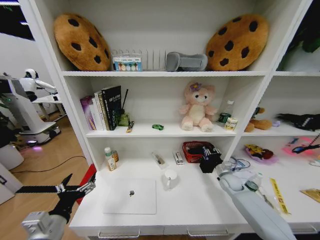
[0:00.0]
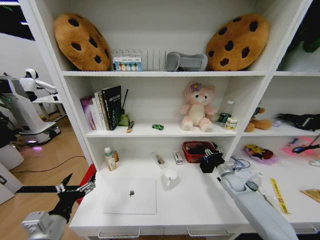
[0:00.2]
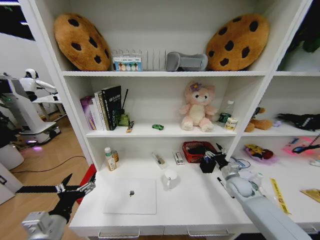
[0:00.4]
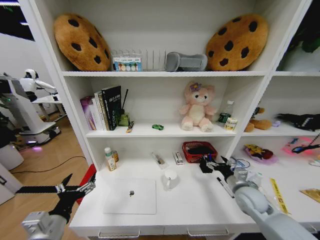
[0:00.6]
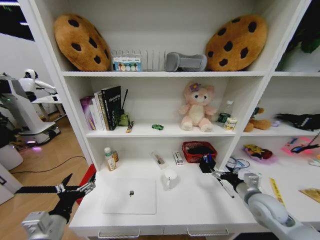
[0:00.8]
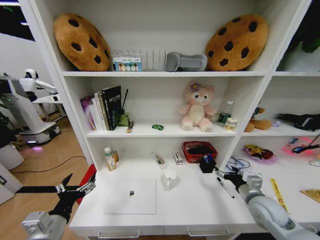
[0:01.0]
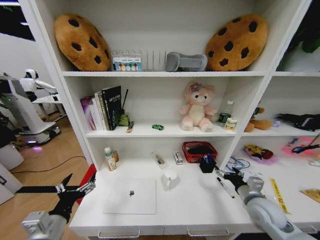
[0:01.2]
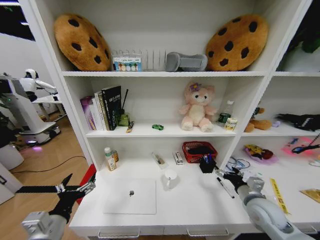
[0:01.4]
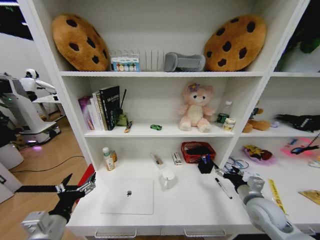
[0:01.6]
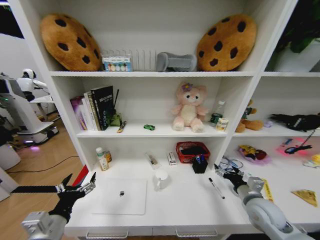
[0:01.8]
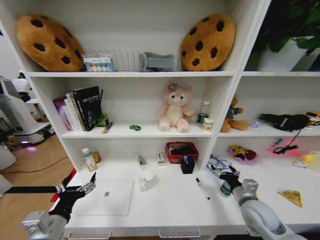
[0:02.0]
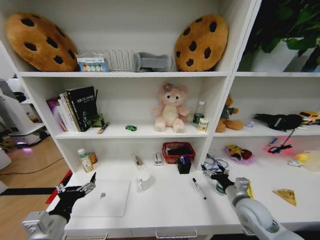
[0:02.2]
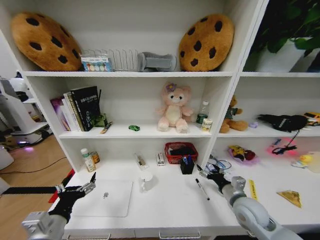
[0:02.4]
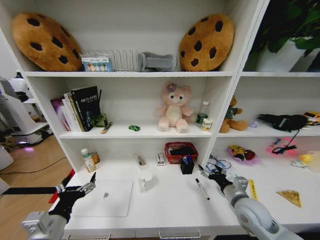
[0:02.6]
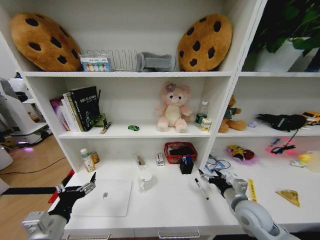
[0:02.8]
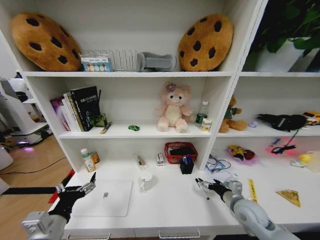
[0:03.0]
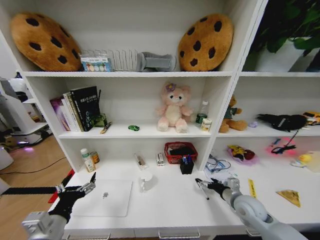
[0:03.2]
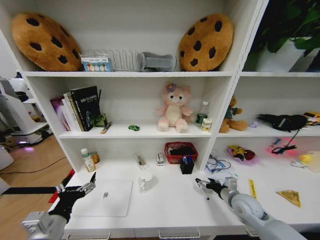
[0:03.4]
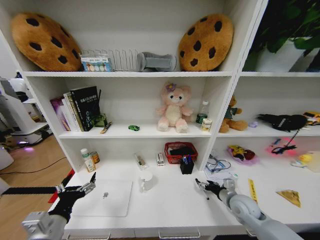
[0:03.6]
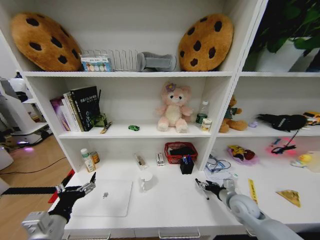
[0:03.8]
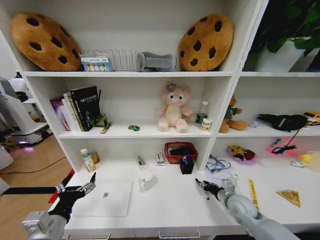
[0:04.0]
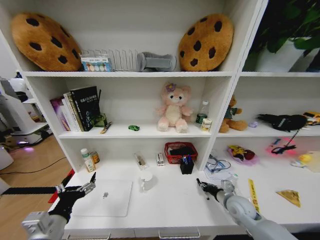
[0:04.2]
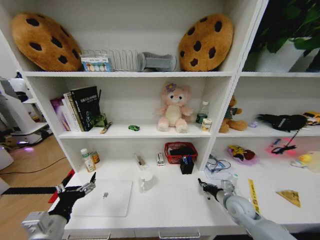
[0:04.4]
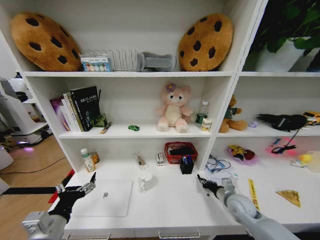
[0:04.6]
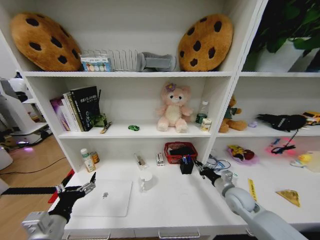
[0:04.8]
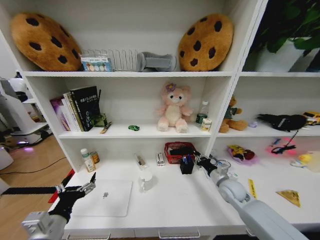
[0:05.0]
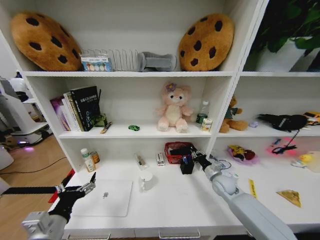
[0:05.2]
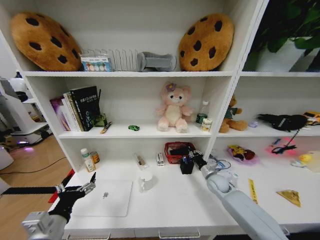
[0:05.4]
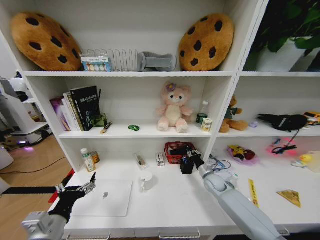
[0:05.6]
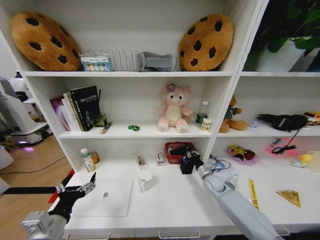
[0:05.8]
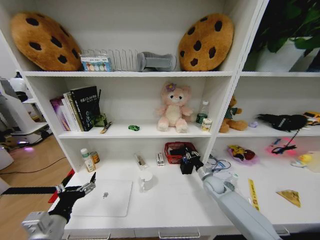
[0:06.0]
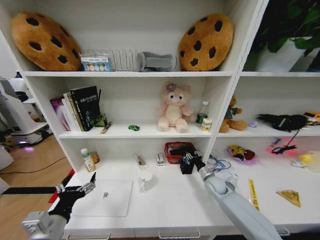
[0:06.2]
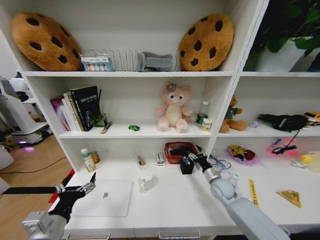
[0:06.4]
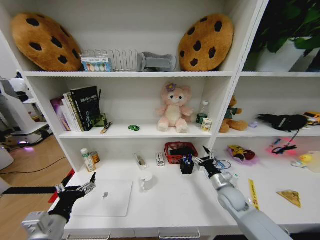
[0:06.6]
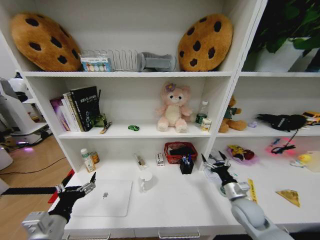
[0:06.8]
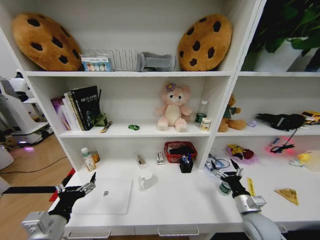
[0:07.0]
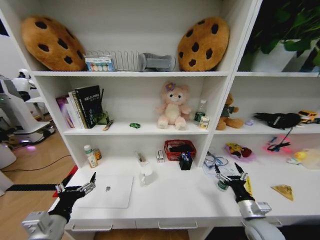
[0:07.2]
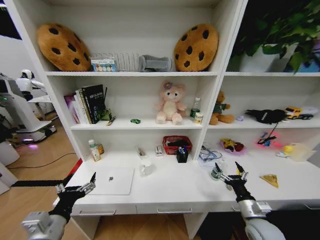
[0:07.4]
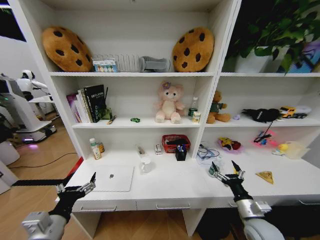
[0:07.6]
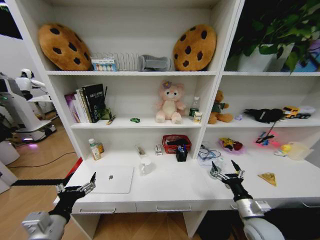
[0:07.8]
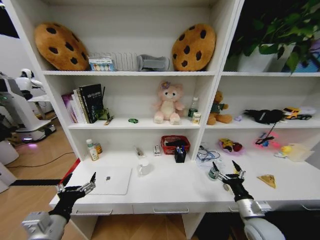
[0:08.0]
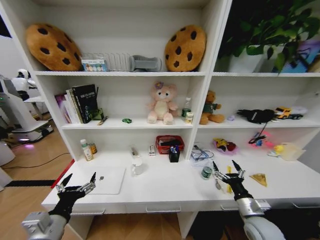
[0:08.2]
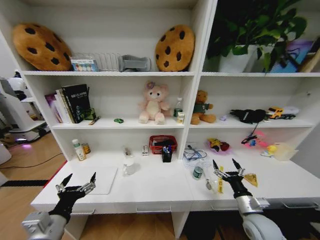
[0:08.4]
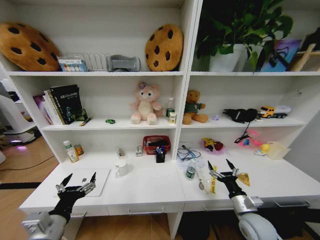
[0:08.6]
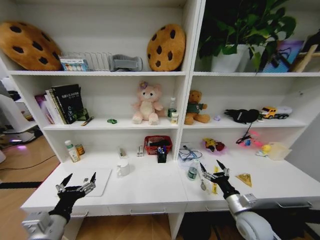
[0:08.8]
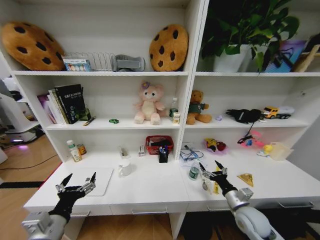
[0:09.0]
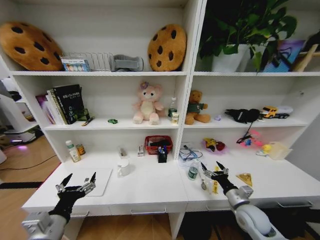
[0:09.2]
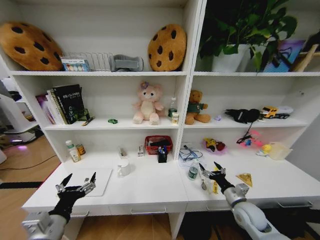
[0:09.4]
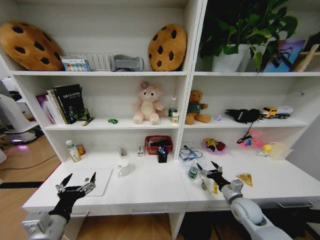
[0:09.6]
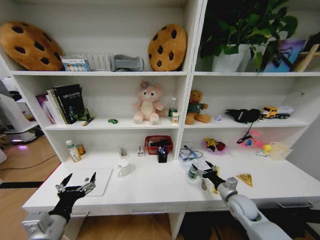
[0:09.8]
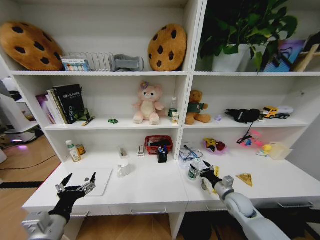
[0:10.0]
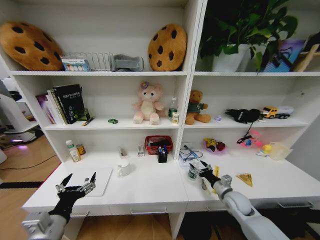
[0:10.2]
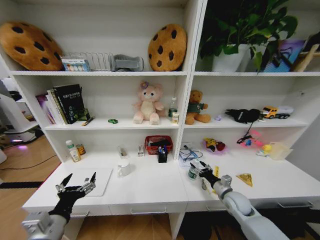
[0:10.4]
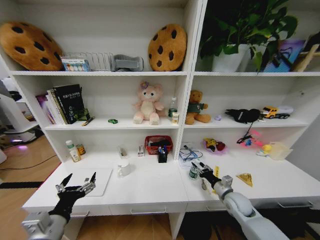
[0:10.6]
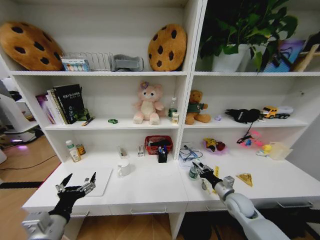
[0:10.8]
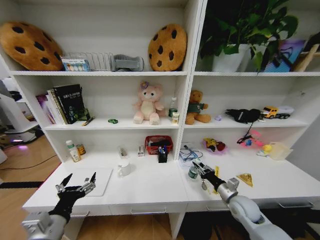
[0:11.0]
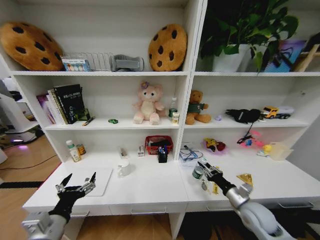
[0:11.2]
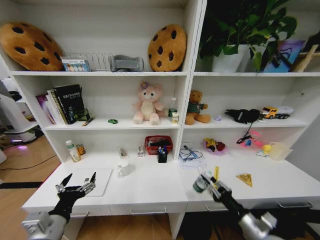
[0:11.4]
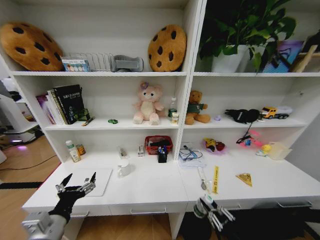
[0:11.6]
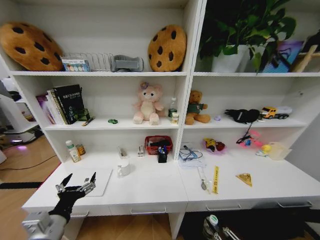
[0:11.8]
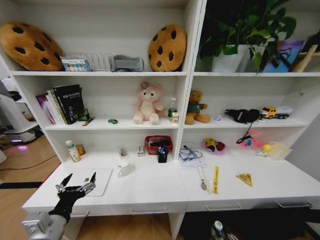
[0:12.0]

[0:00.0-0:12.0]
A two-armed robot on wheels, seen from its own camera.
Task of the whole recording: Organize the objects on the table.
0:00.0 to 0:01.6: The right gripper heads backward and upward, covering approximately 20 cm, and opens its fingers.
0:03.0 to 0:04.4: The right gripper ends up roughly 5 cm from where it was, and closes up.
0:04.4 to 0:06.0: The right gripper travels forward by roughly 10 cm.
0:06.0 to 0:07.6: The right gripper shifts some 20 cm backward, and opens its fingers.
0:09.0 to 0:10.4: The right gripper heads forward, covering approximately 10 cm.
0:10.4 to 0:12.0: The right gripper moves backward, approximately 30 cm, and closes its fingers.

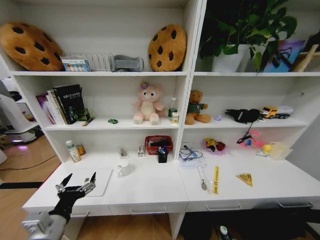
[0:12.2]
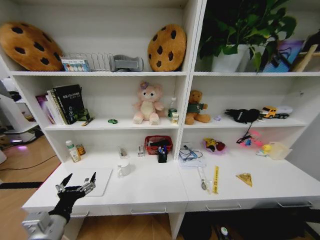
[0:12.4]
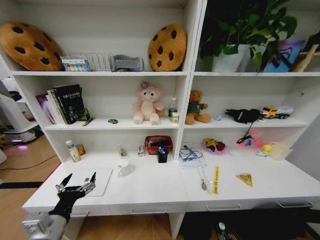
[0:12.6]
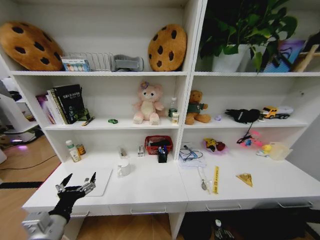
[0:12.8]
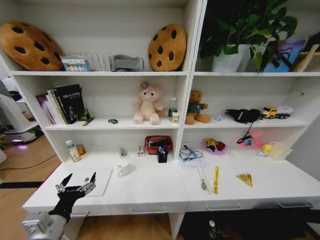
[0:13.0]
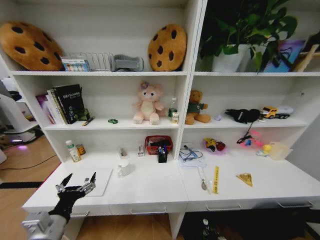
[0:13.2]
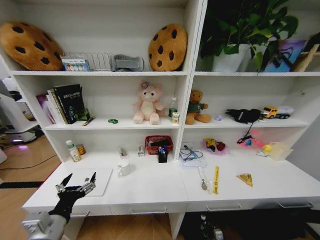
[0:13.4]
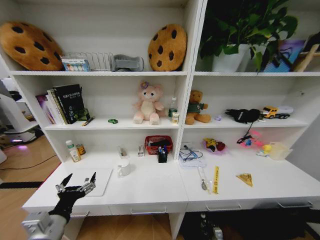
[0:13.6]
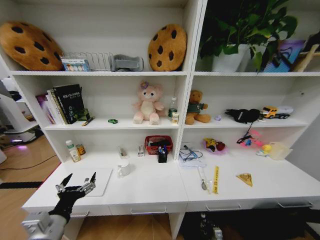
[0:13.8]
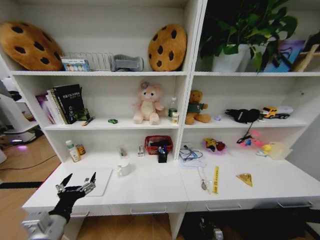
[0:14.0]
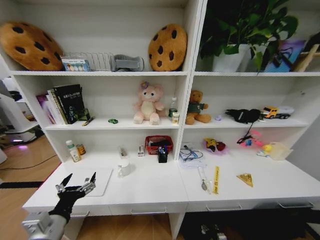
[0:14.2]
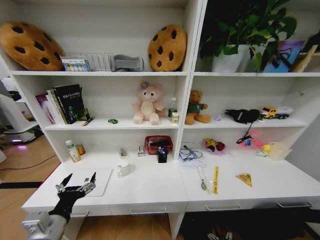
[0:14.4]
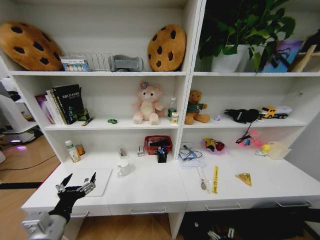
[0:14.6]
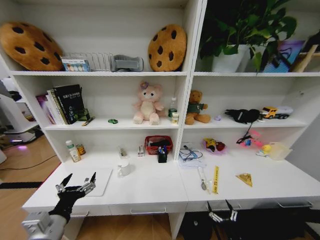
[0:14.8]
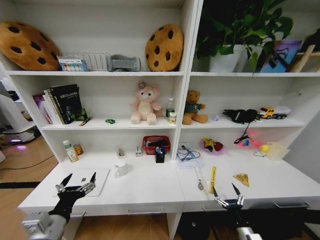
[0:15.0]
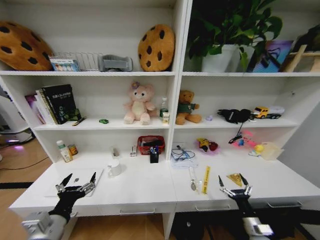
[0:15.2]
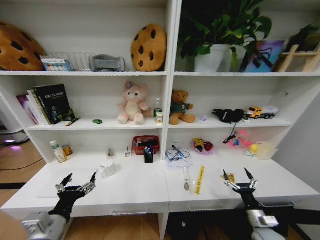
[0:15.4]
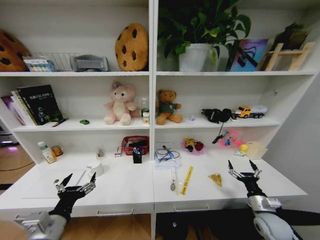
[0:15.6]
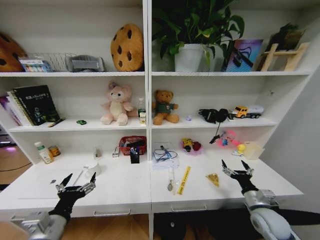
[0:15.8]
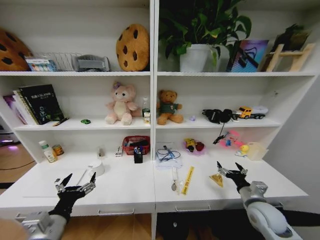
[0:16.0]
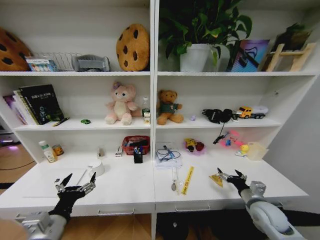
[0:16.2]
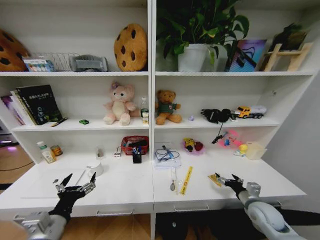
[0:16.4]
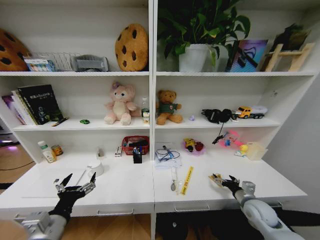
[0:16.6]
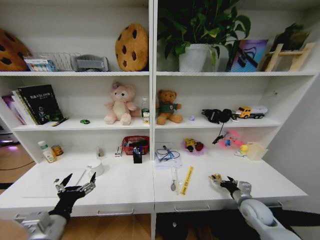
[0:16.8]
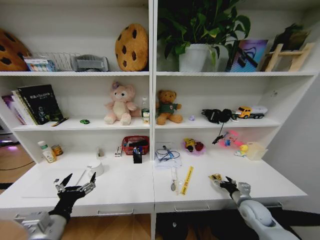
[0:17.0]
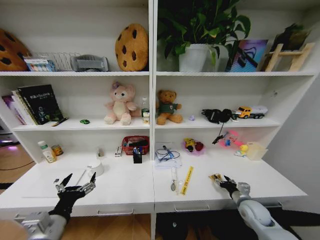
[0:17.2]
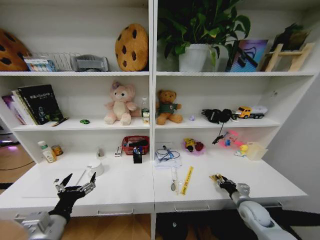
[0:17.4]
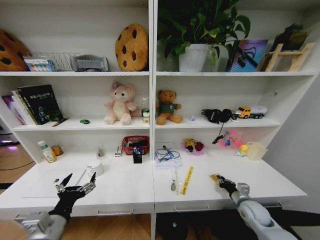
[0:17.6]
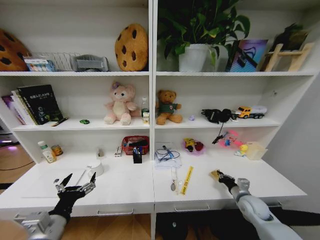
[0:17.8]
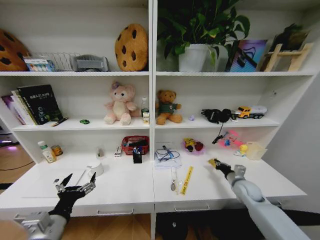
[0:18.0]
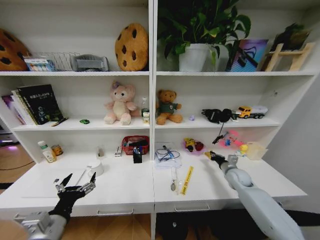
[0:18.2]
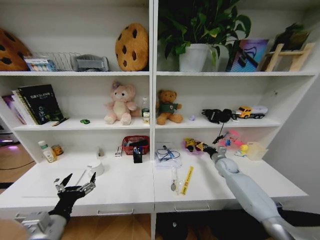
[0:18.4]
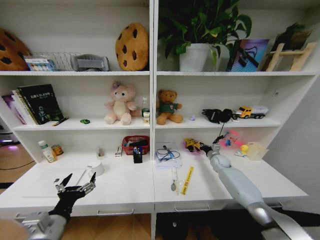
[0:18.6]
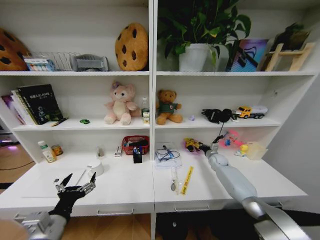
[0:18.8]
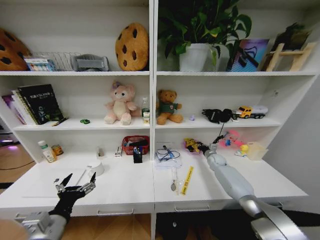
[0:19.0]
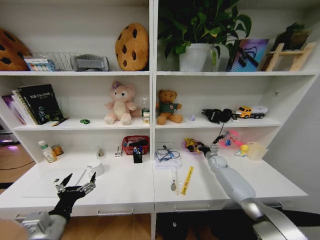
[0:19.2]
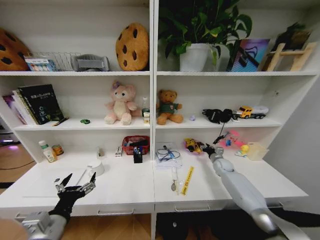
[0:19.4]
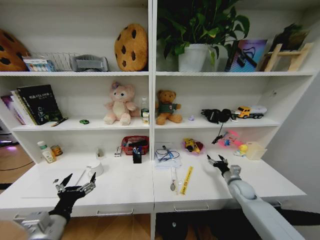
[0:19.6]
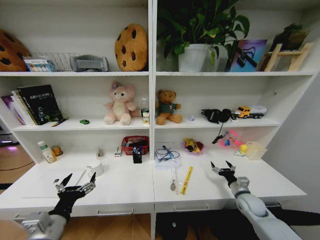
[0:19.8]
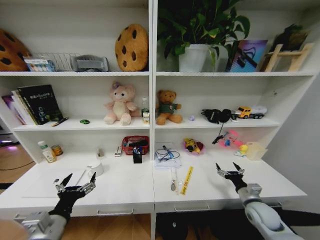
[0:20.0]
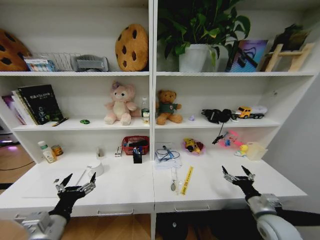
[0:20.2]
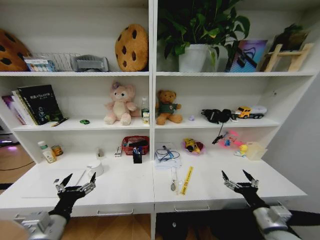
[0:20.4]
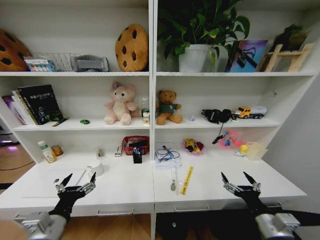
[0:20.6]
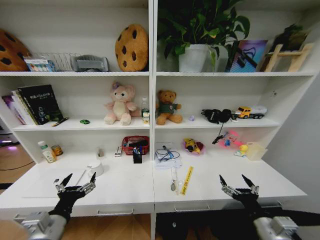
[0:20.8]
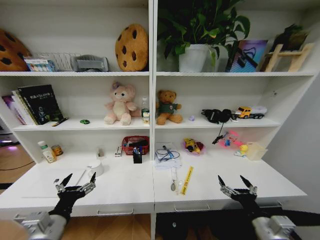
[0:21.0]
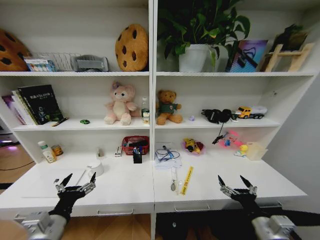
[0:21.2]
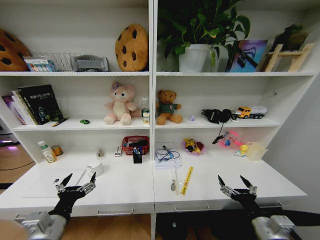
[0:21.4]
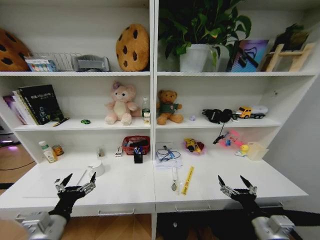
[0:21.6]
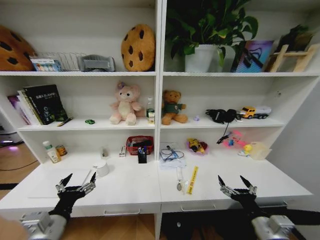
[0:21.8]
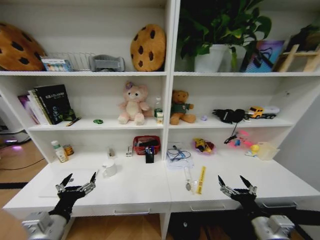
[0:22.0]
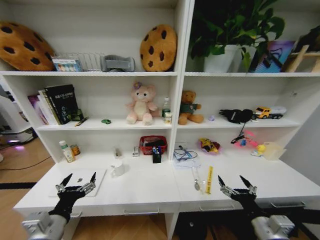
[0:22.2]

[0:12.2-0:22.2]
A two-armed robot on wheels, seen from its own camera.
Task of the whole recording: Organize the objects on the table.
0:13.6 to 0:15.0: The right gripper heads upward, covering approximately 20 cm, and opens.
0:15.0 to 0:16.4: The right gripper heads upward and forward, covering roughly 20 cm.
0:16.4 to 0:18.0: The right gripper goes about 10 cm forward, and closes its fingers.
0:18.0 to 0:19.4: The right gripper goes roughly 15 cm forward, and opens.
0:19.4 to 0:20.8: The right gripper travels backward by roughly 40 cm, and opens up.
